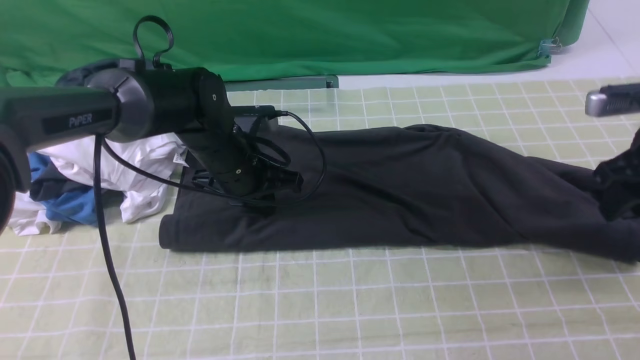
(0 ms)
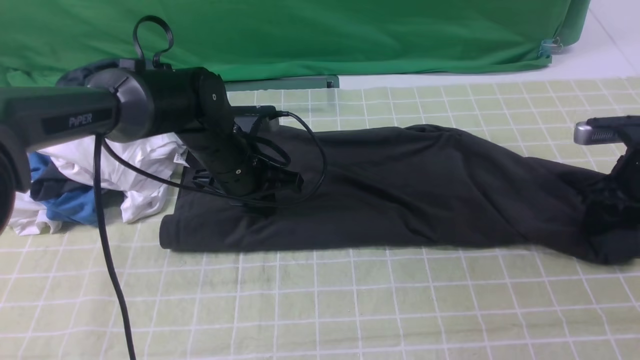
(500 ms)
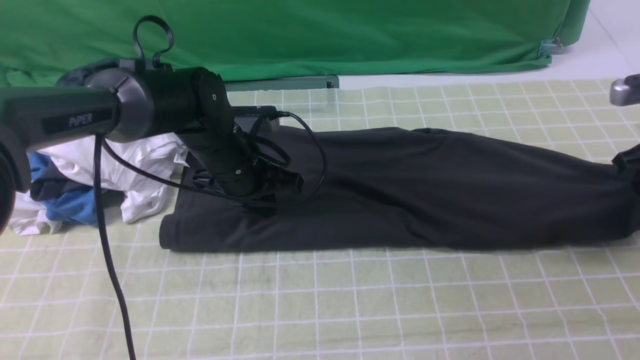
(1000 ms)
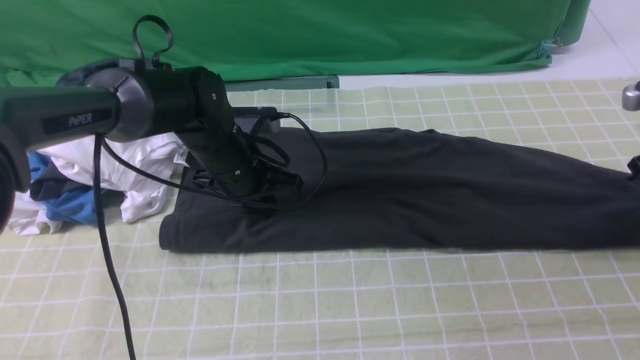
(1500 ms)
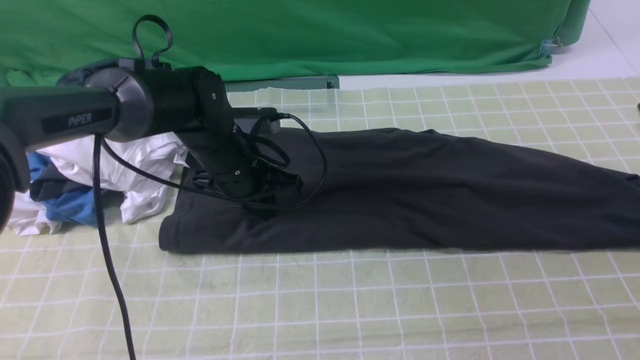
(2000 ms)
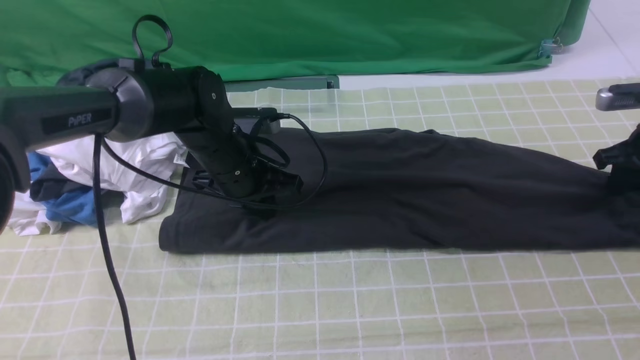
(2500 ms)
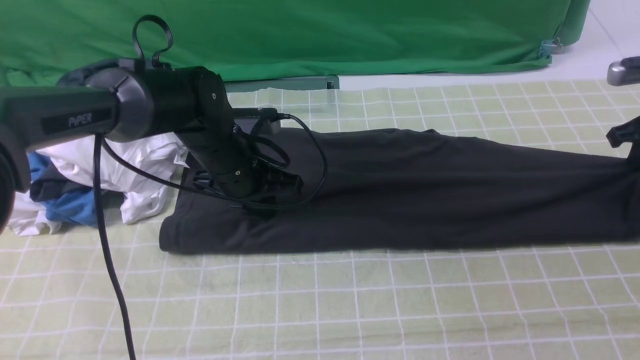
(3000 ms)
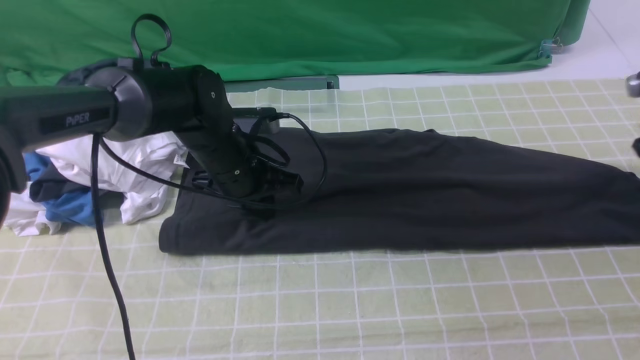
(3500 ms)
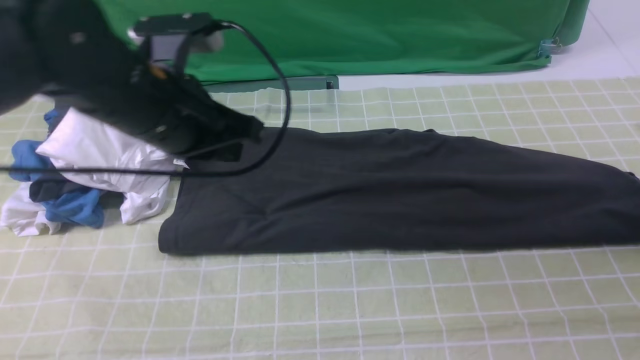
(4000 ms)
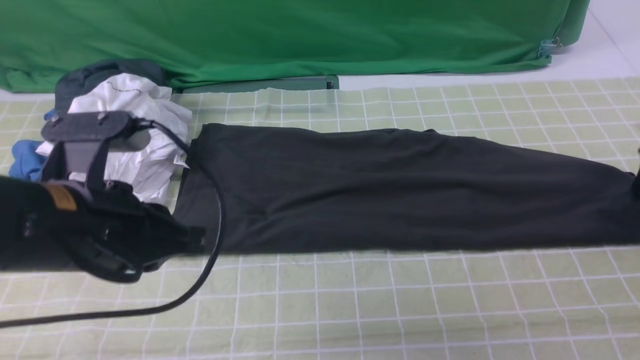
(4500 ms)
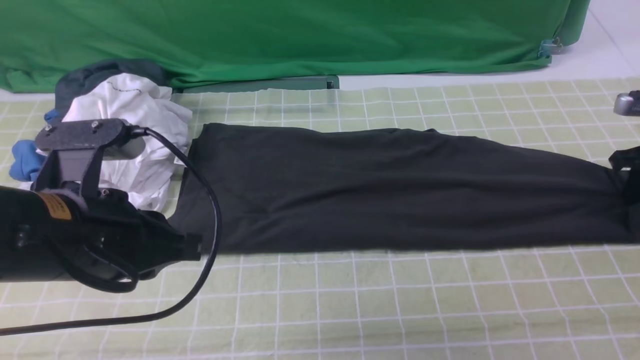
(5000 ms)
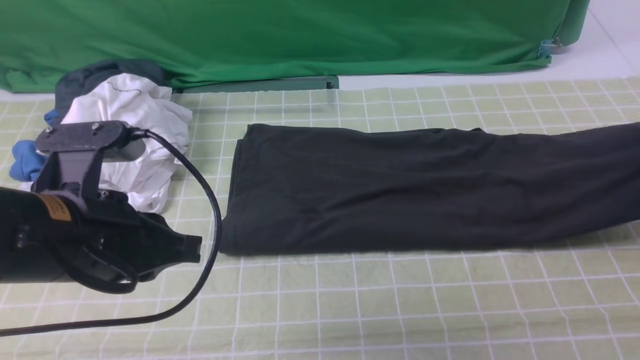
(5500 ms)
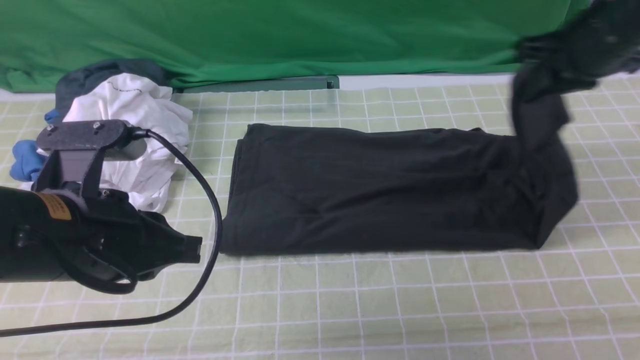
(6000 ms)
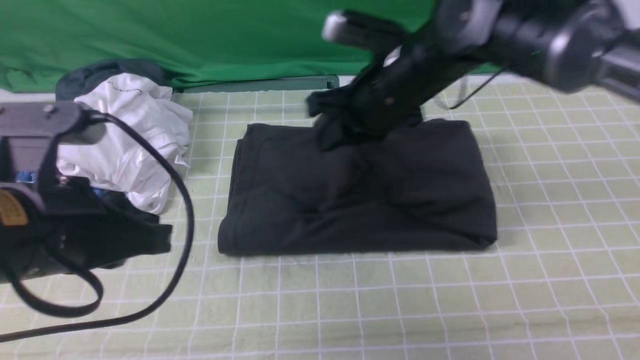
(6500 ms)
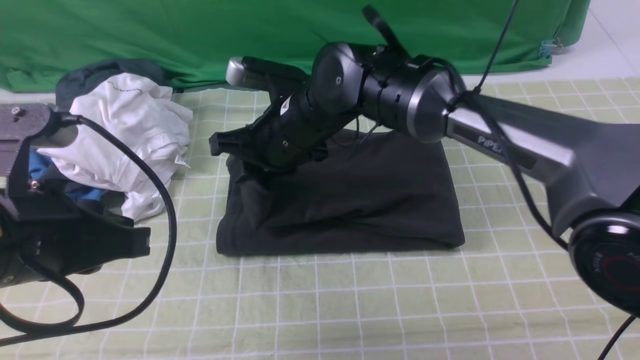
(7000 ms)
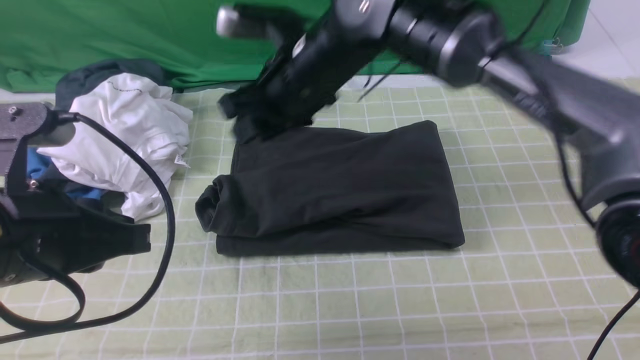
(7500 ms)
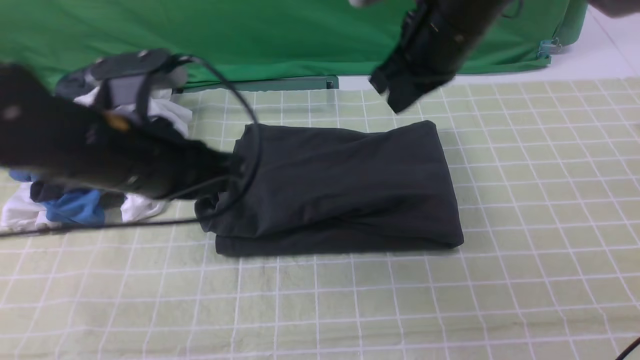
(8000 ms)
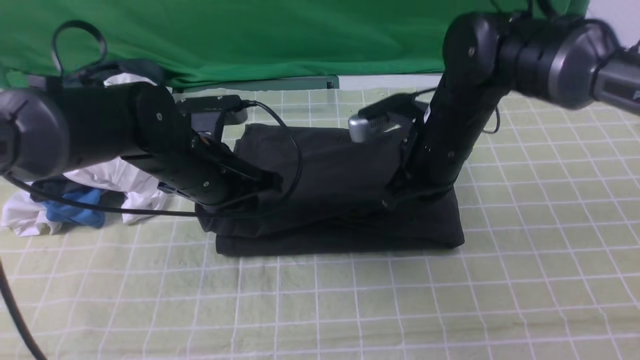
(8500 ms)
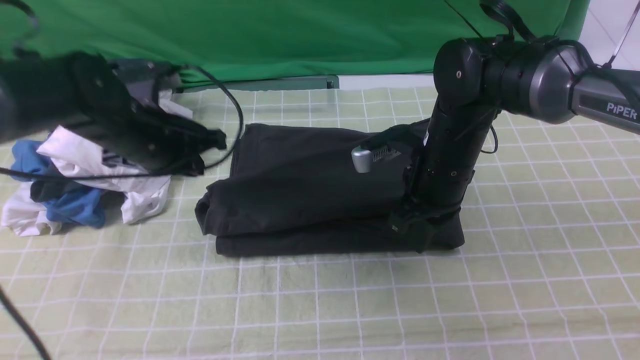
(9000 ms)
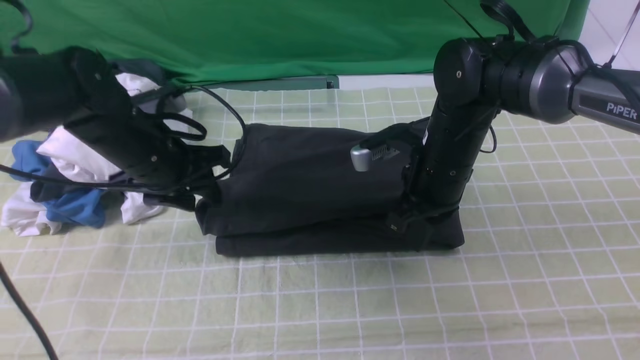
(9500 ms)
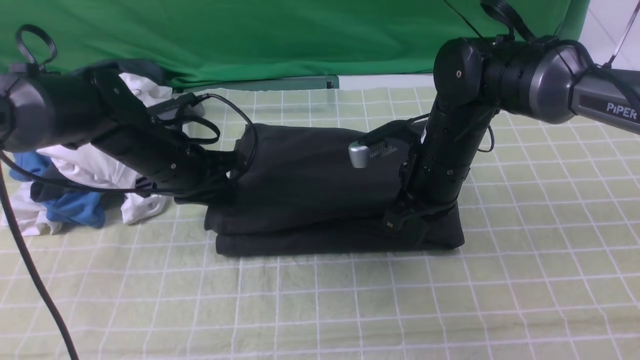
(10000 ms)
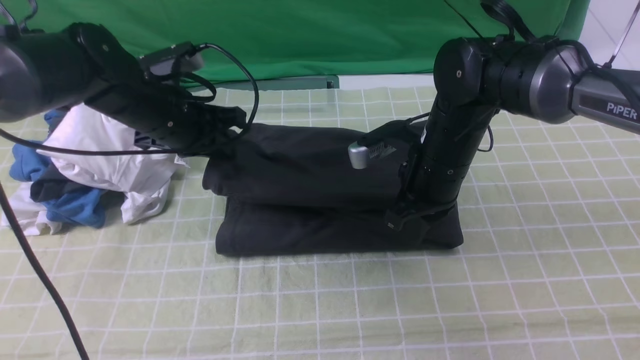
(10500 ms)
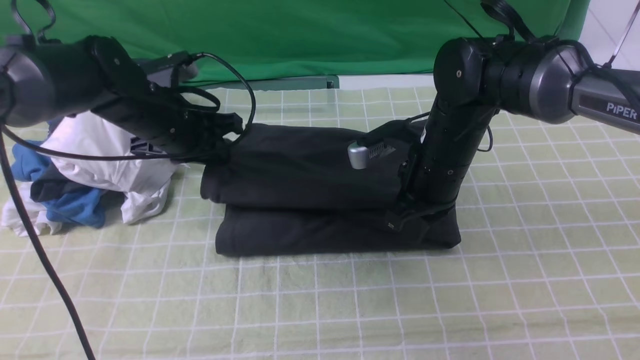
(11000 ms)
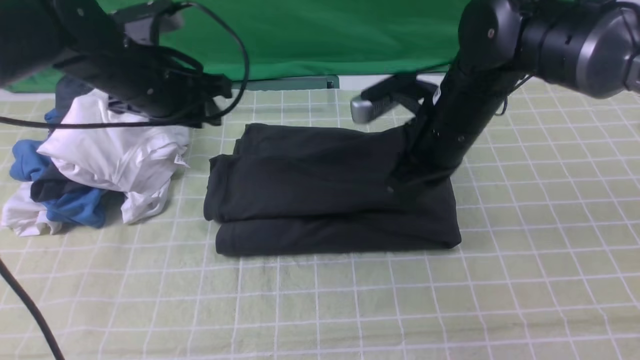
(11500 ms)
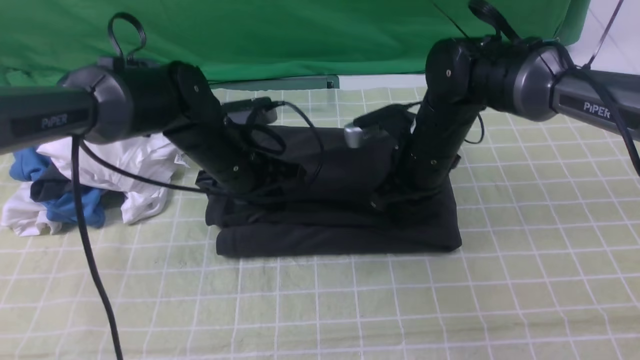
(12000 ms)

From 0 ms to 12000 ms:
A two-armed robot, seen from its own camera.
Step, from 0 ms to 4500 ms: use the right arm to clamp the right edge of the fabric.
Step, from 5500 ms to 7000 ms: use the right arm to drag the right edge of the fabric to the left and folds it over the left edge.
From 0 ms to 2000 ms: The right gripper goes some 5 cm to the right, and closes and opens again.
From 2000 ms to 4000 ms: The right gripper reaches about 5 cm downward, then returns, and closes, then reopens. Meanwhile the left gripper is displaced upward and backward by about 15 cm.
From 4000 ms to 6000 ms: The right gripper travels to the left by about 20 cm, and opens, then closes again, while the left gripper shifts approximately 10 cm backward.
From 6000 ms to 8000 ms: The right gripper goes roughly 15 cm to the left. The left gripper goes about 10 cm forward.
From 8000 ms to 10000 ms: The left gripper heads forward and downward, covering approximately 15 cm, and opens its fingers. The right gripper is displaced downward by about 10 cm.
From 10000 ms to 12000 ms: The left gripper is displaced to the right by about 5 cm, and closes.

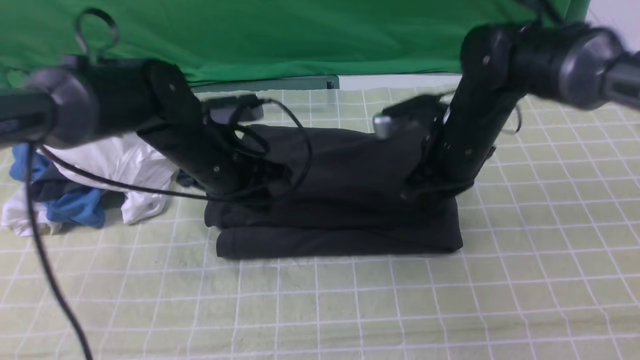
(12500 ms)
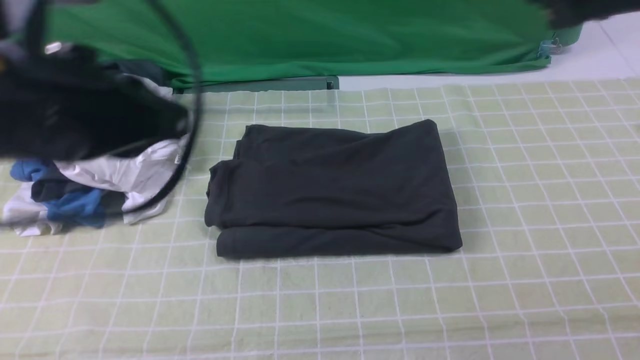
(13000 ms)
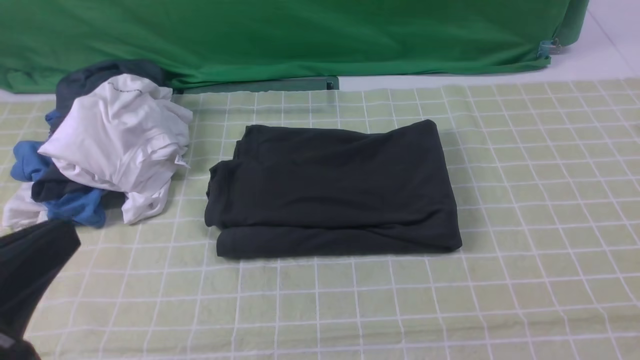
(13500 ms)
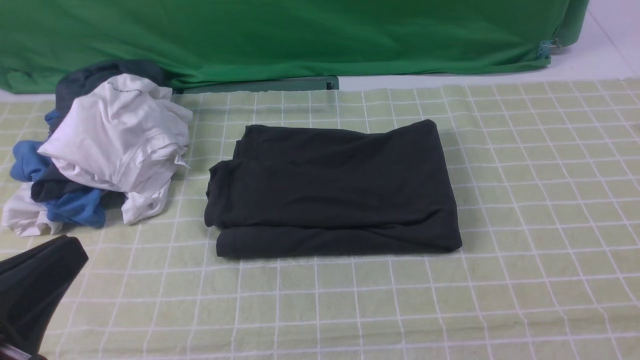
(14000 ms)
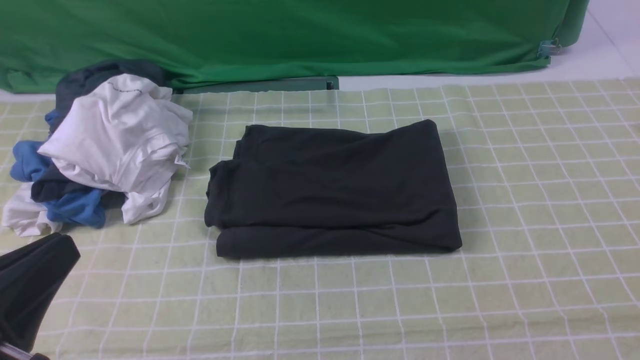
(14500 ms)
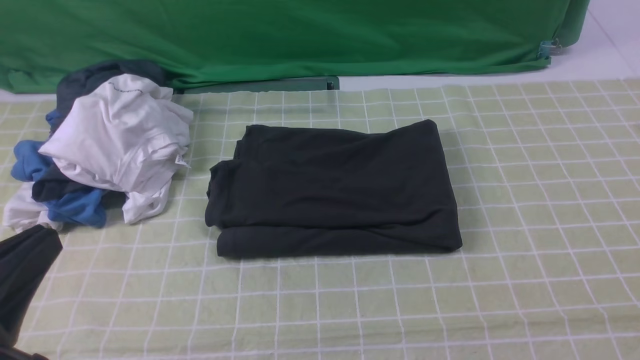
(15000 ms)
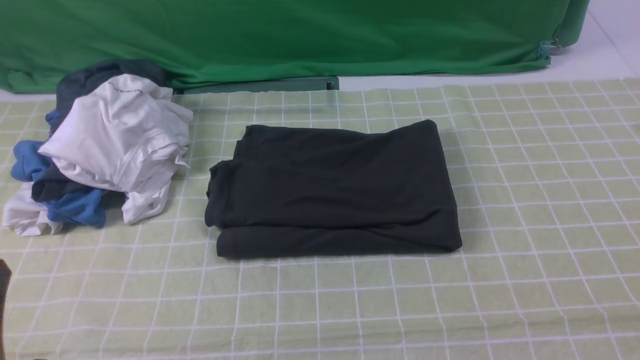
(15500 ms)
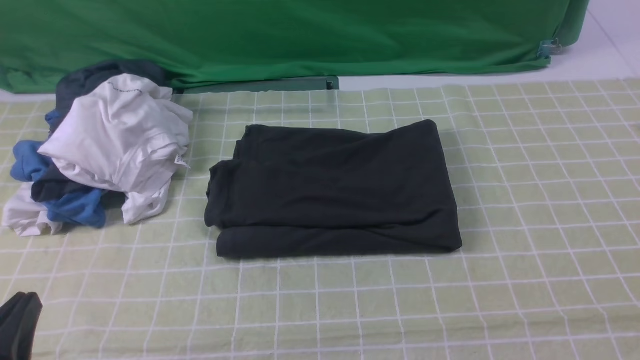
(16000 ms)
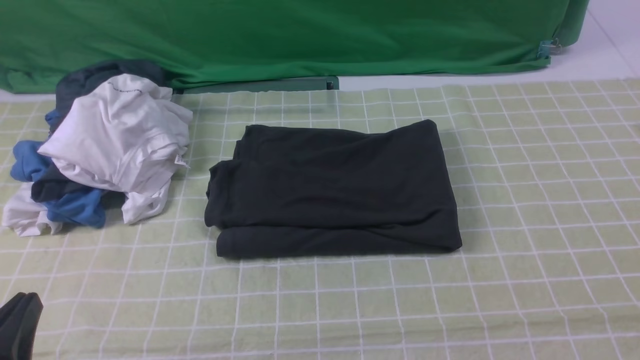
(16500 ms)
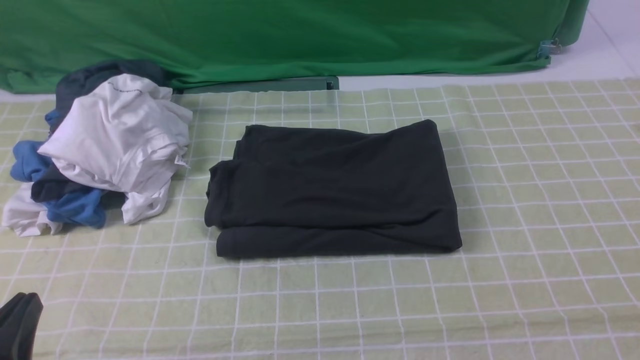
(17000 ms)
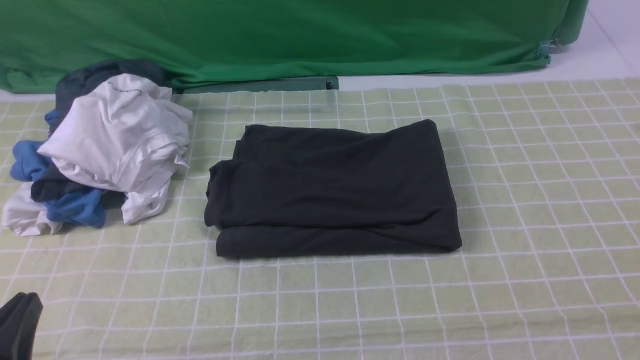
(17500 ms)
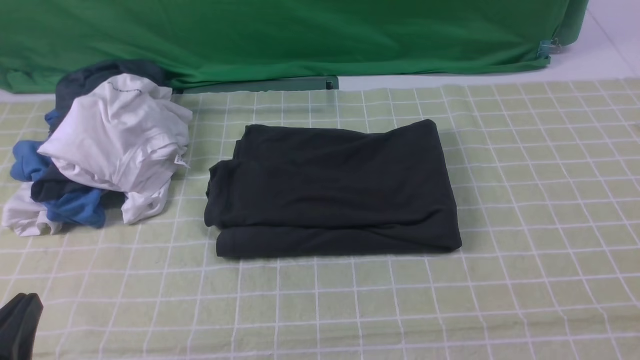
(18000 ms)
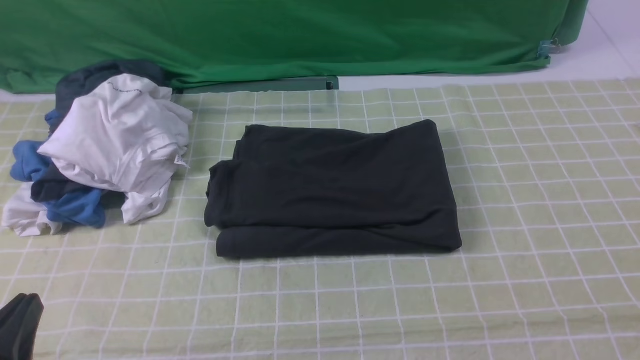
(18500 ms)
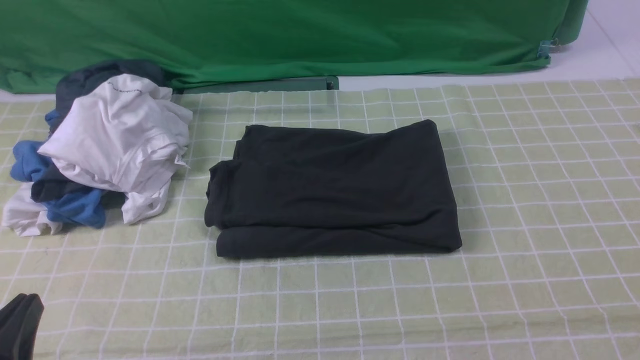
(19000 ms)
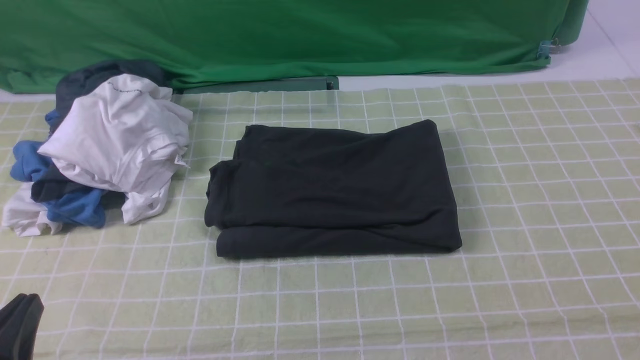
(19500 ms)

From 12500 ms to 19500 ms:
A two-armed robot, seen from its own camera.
From 12500 ms to 14500 ms: The left gripper is displaced backward by roughly 30 cm, while the right gripper goes about 40 cm backward and to the right.
From 14500 ms to 16000 ms: The left gripper moves downward, approximately 10 cm.
